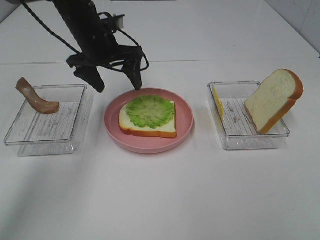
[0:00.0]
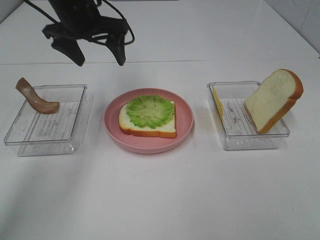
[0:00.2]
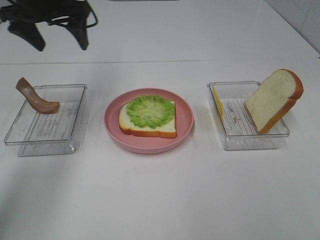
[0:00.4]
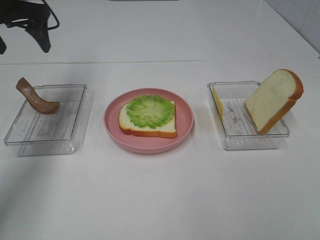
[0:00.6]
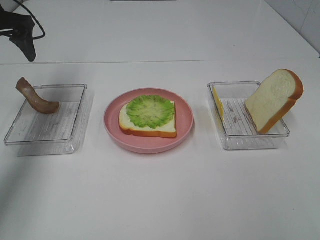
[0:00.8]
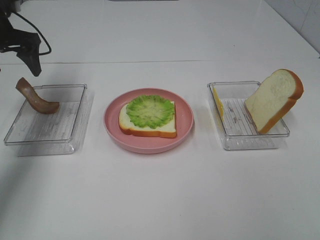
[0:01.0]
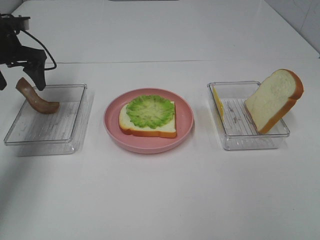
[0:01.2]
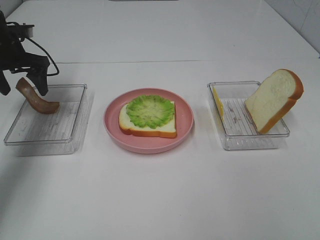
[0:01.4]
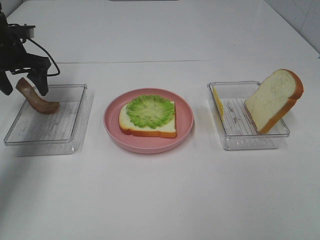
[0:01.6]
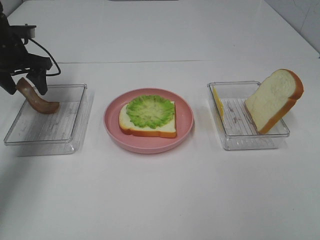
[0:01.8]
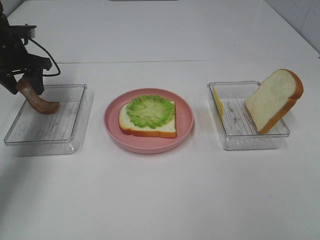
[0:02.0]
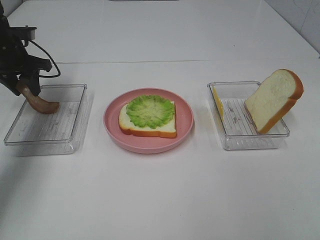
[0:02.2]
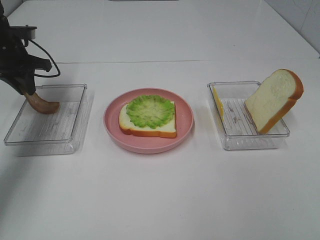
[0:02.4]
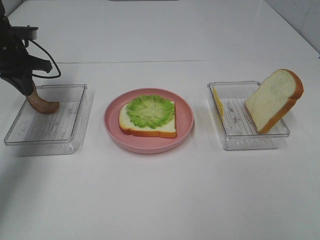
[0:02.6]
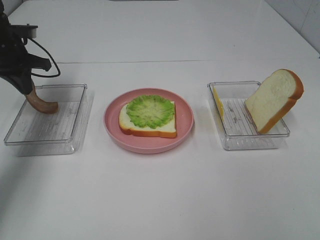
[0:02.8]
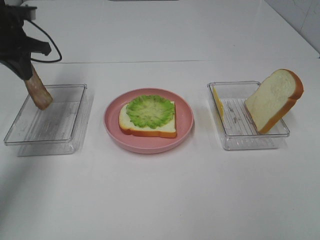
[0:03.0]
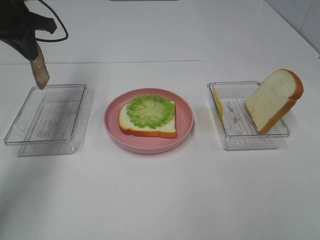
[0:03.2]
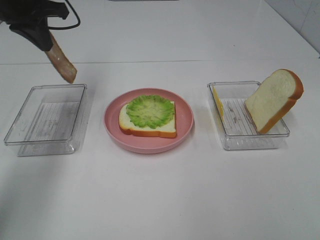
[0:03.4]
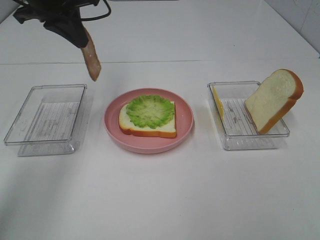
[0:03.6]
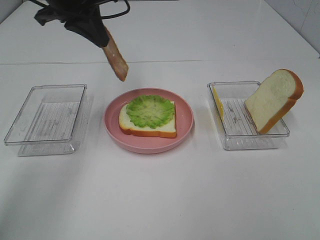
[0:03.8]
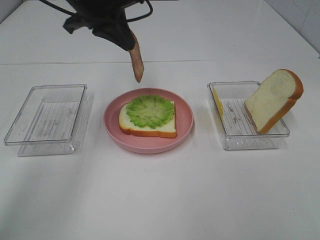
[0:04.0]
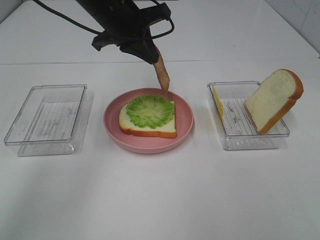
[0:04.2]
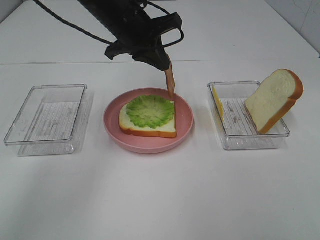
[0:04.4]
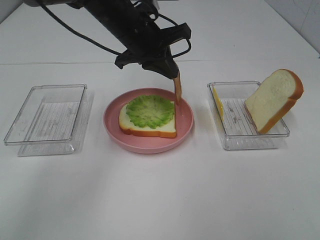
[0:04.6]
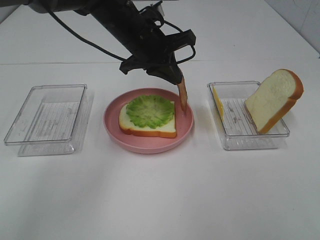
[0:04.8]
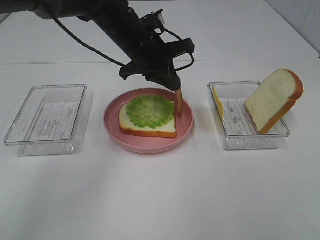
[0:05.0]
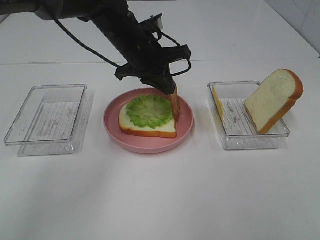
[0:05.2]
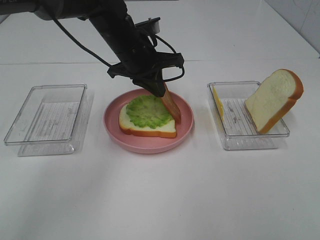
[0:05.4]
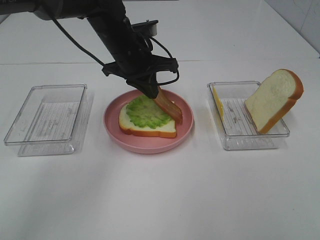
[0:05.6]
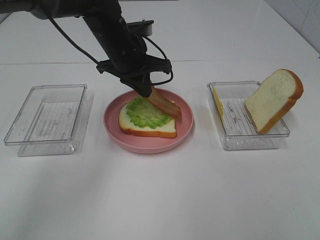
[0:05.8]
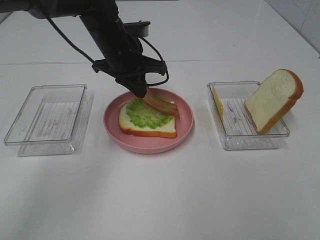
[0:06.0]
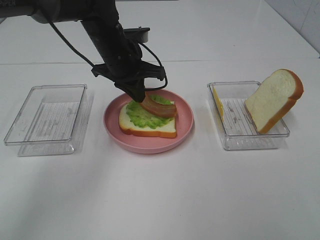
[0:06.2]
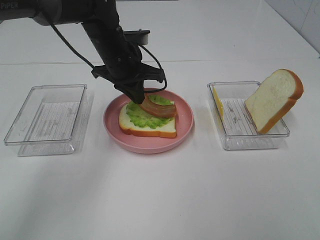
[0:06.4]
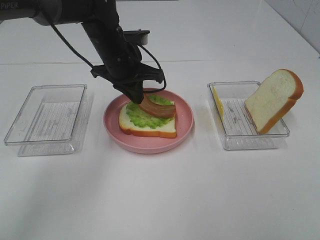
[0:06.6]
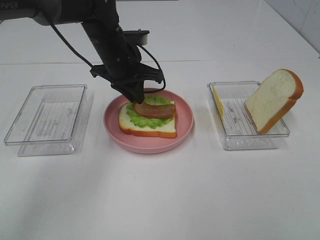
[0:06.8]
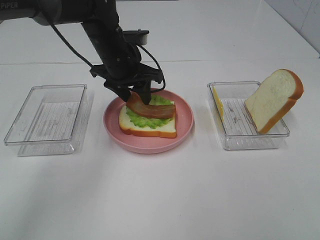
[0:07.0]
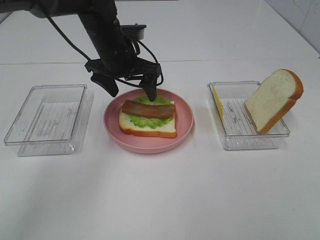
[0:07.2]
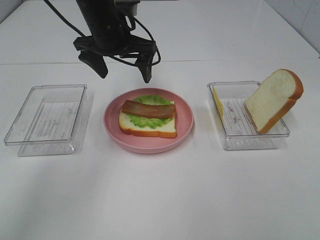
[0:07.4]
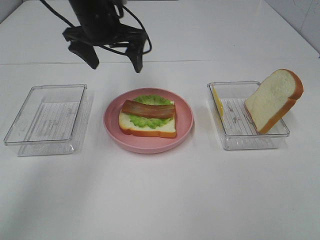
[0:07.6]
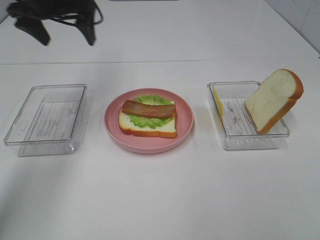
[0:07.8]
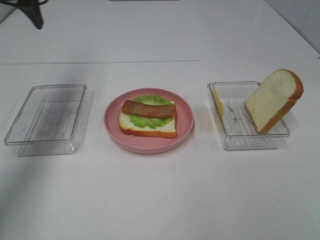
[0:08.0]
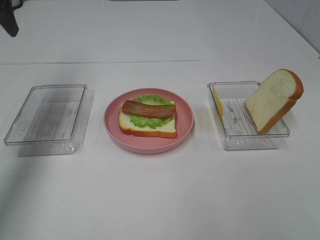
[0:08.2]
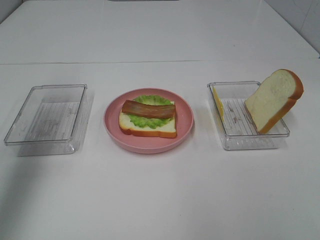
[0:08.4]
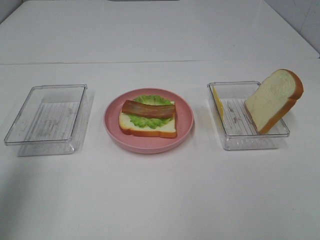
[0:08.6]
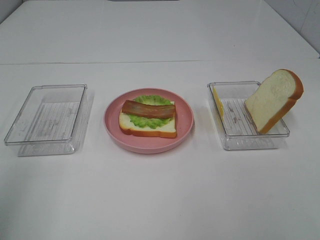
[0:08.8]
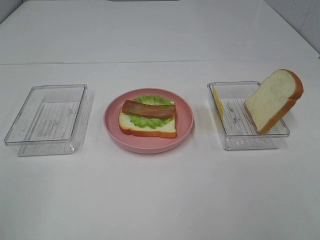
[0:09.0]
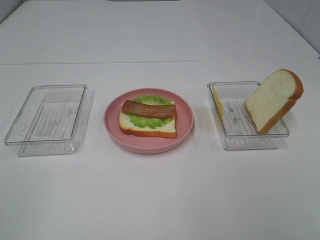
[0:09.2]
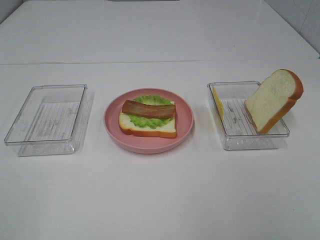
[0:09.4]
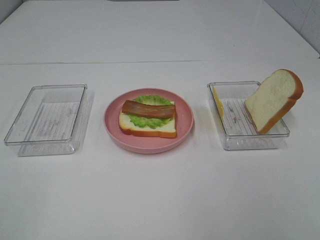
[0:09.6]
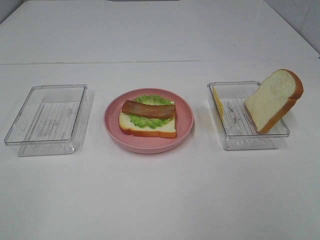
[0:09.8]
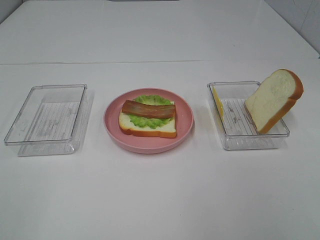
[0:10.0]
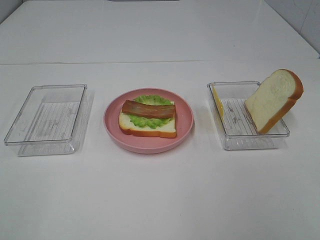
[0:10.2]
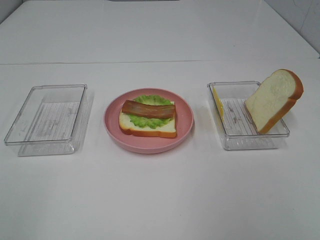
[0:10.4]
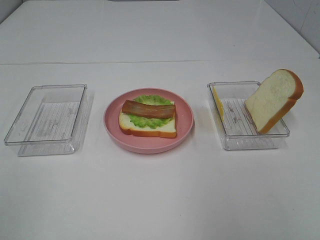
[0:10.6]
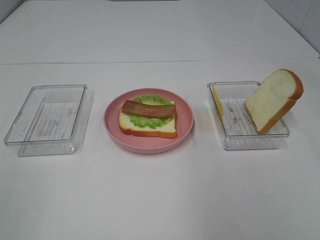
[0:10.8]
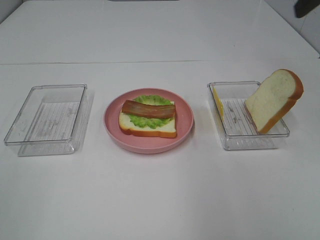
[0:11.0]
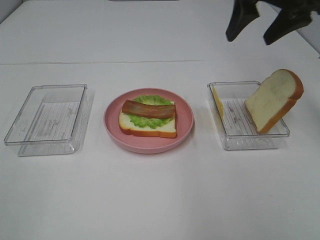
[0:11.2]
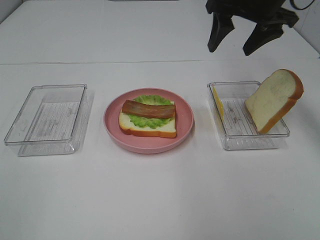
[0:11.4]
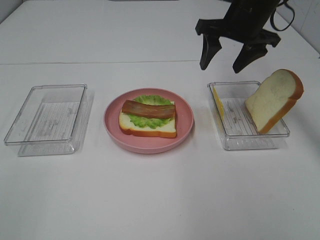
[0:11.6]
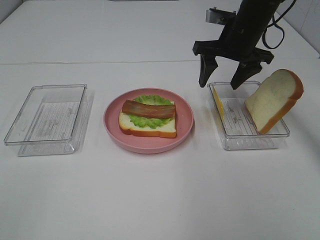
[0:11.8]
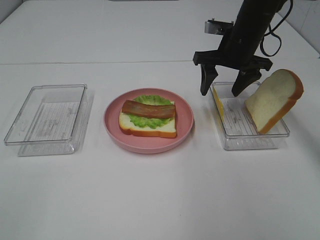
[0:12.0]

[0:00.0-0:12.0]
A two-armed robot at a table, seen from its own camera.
Task of the whole recording: Make sandwiches.
Step, 0:00.0 to 0:02.8: Left hand:grab the bacon.
Step, 0:03.0 to 0:07.0: Left hand:Place bacon on lettuce slice.
0:00.0 to 0:01.6: The left gripper is displaced to the left by roughly 20 cm.
0:01.6 to 0:03.0: The left gripper ends up some 5 cm from where it was, and closes its fingers.
0:03.0 to 0:04.4: The left gripper goes approximately 25 cm to the right.
0:04.4 to 0:06.0: The left gripper travels downward by roughly 5 cm.
0:06.0 to 0:07.6: The left gripper heads upward, covering about 5 cm, and opens.
0:07.6 to 0:09.0: The left gripper is displaced backward and to the left by some 50 cm.
0:10.4 to 0:12.0: The right gripper goes about 40 cm forward and downward.

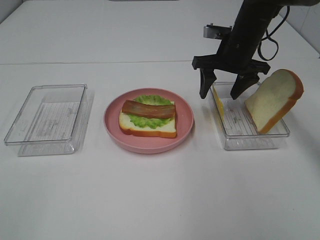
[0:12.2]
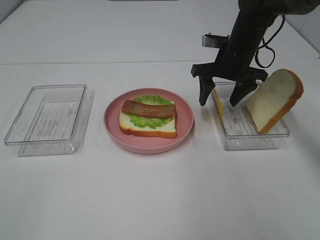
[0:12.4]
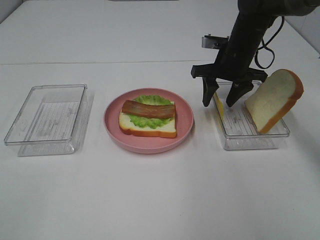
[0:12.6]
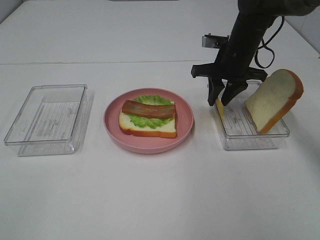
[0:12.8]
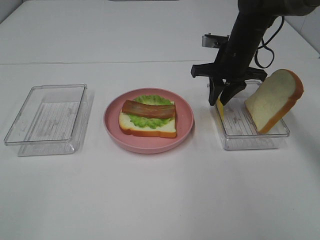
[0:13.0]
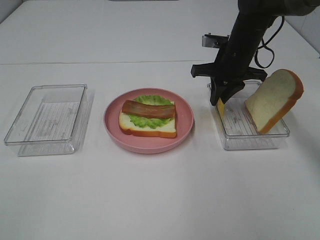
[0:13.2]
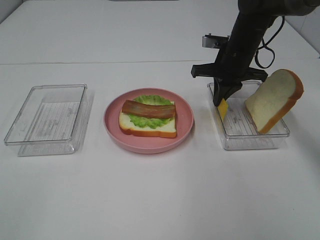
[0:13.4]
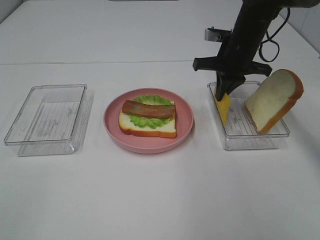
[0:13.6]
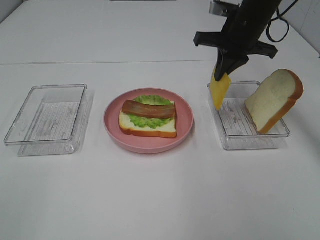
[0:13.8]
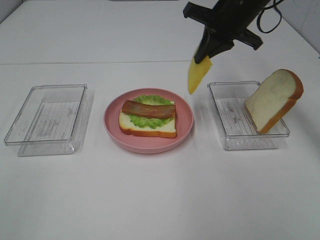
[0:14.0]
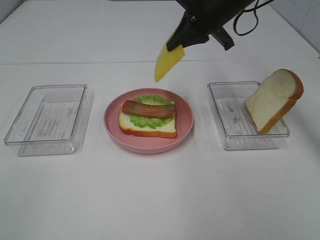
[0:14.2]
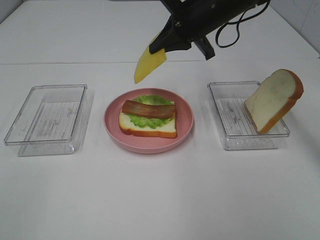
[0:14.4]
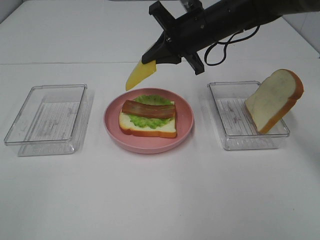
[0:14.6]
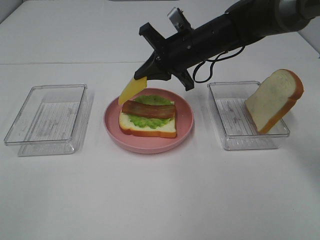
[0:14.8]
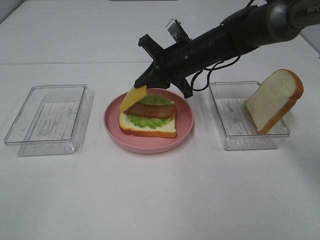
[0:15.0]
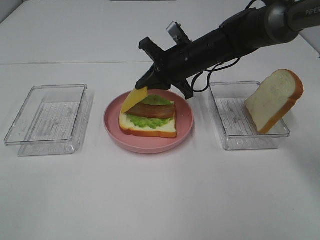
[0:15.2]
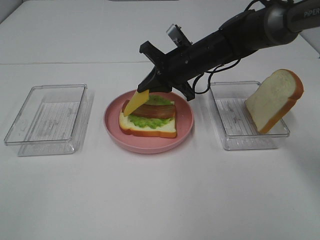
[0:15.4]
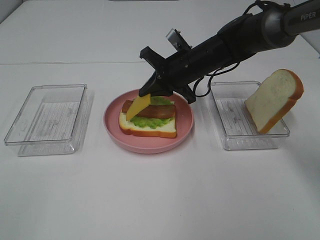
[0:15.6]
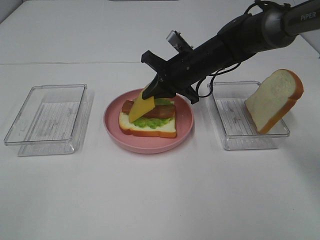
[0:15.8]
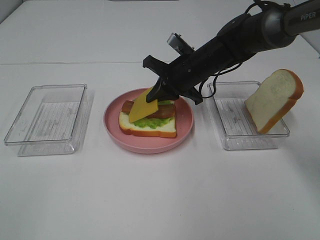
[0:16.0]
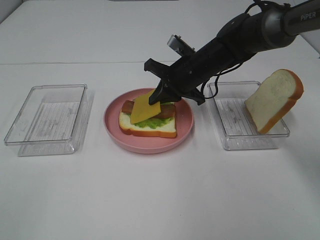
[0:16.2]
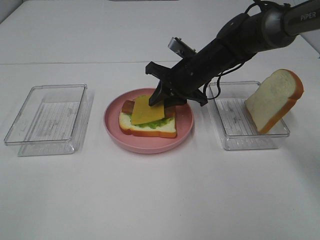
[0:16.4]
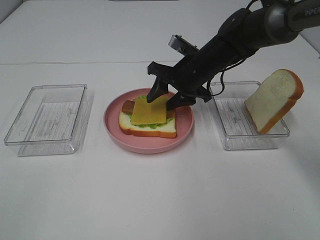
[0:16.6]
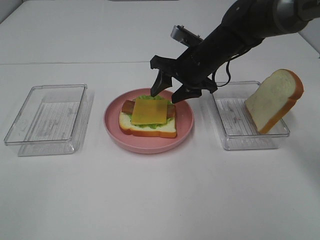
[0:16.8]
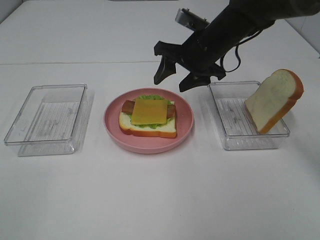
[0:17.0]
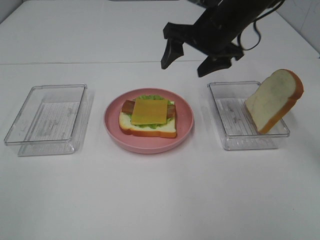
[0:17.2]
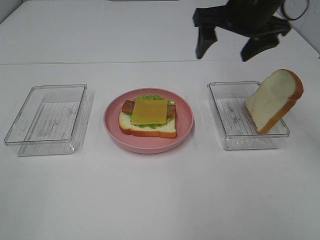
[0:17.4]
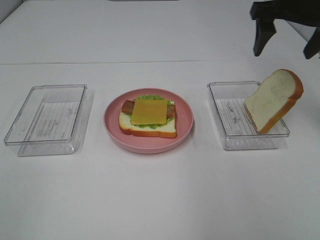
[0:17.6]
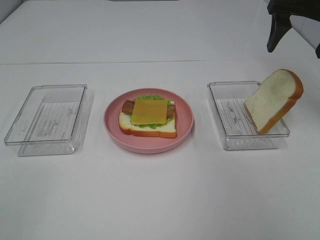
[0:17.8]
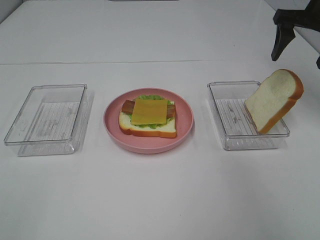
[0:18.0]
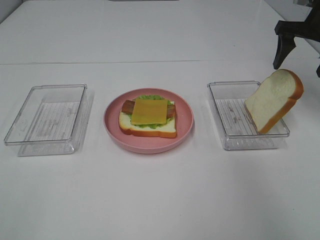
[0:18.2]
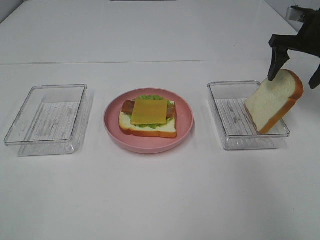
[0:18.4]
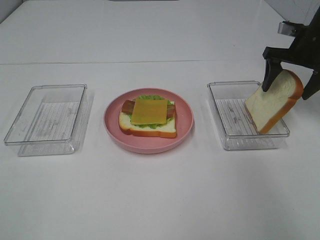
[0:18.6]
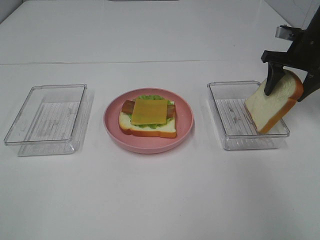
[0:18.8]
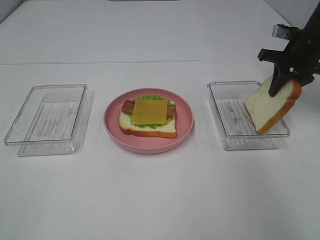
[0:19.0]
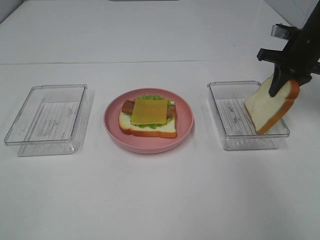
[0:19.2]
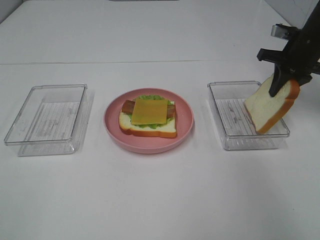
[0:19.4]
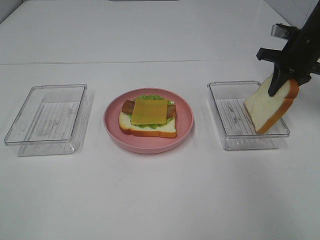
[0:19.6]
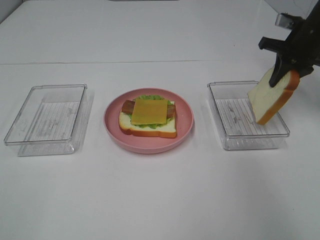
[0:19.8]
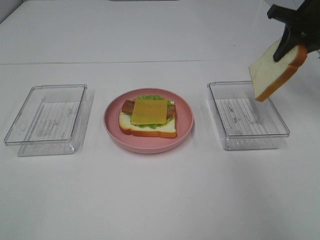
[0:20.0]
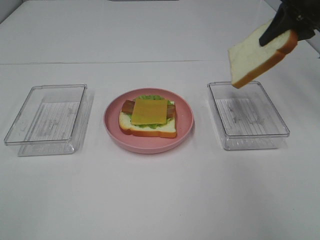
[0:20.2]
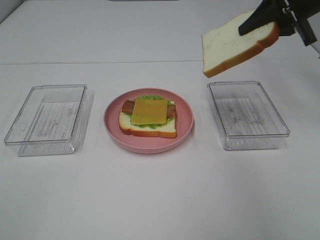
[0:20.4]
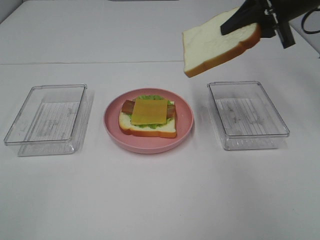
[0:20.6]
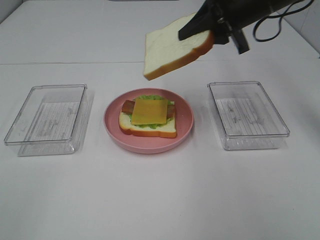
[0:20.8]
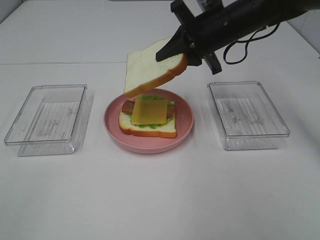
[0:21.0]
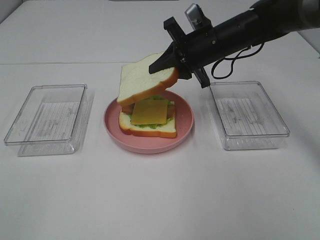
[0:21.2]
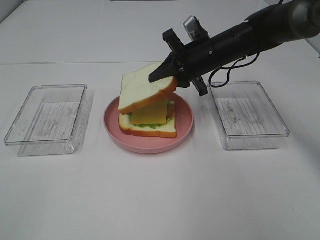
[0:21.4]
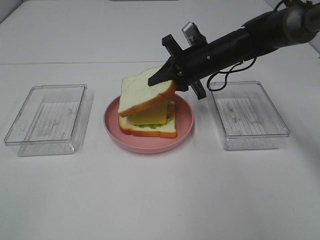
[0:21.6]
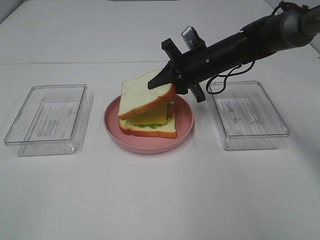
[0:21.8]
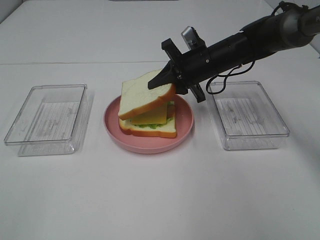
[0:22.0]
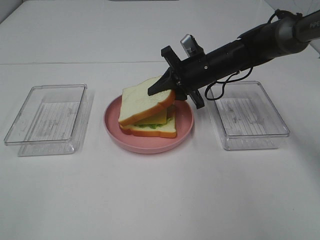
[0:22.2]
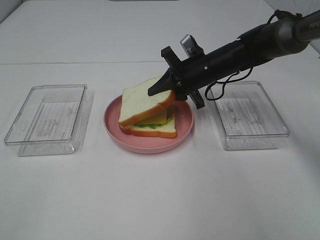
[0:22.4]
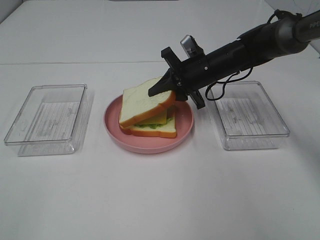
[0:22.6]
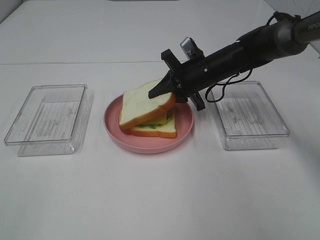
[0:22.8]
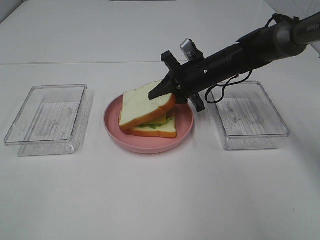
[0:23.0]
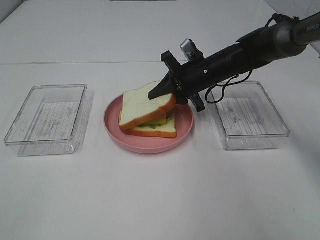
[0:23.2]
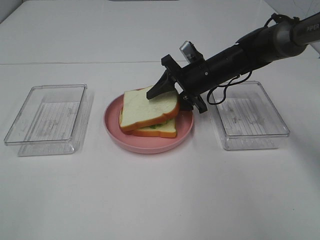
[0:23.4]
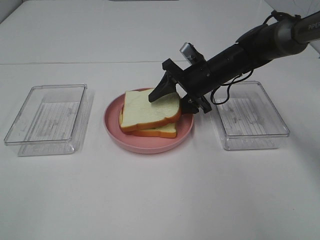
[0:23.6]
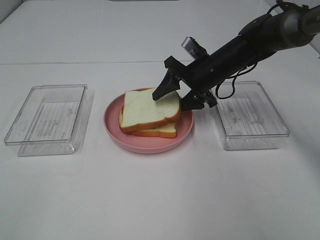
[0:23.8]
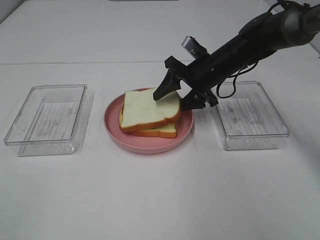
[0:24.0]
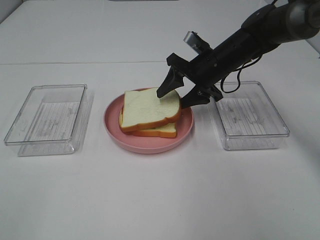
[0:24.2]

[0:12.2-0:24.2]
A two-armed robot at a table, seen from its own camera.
Task of the whole recording: Make sandwiches.
Step, 0:13.6 to 0:16.8: Right hand:Place the cheese slice on top of the bacon.
Step, 0:17.0 to 0:19.2: Right hand:grab the bread slice.
0:12.2 to 0:13.8: The right gripper travels upward by about 5 cm, and closes.
0:13.8 to 0:15.2: The right gripper heads downward and to the left, covering about 10 cm.
0:15.2 to 0:16.6: The right gripper opens up.
0:16.6 to 0:18.2: The right gripper goes some 25 cm to the right and upward, and opens.
0:18.2 to 0:19.8: The right gripper closes up.
0:19.8 to 0:21.2: The right gripper goes some 20 cm to the left.
0:21.2 to 0:22.6: The right gripper heads downward, covering approximately 5 cm.
0:22.6 to 0:24.2: The right gripper opens up.
